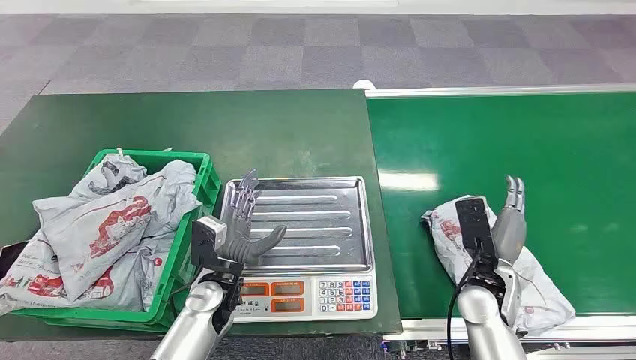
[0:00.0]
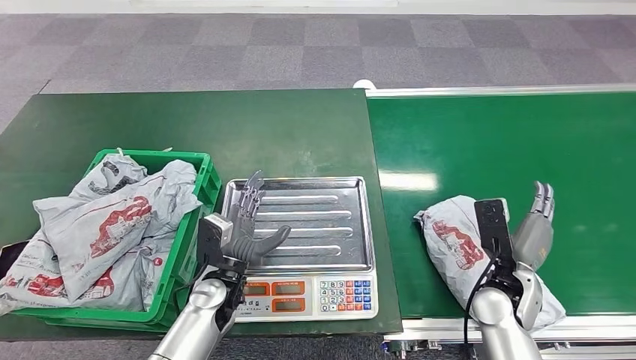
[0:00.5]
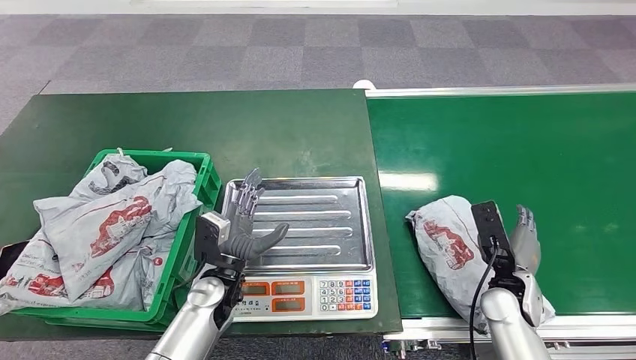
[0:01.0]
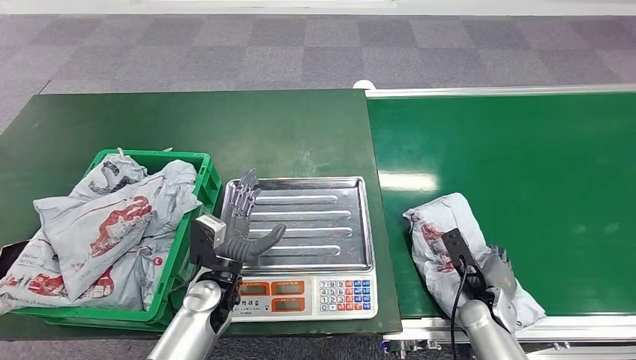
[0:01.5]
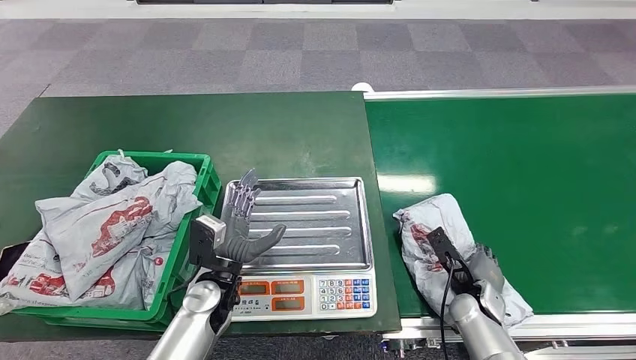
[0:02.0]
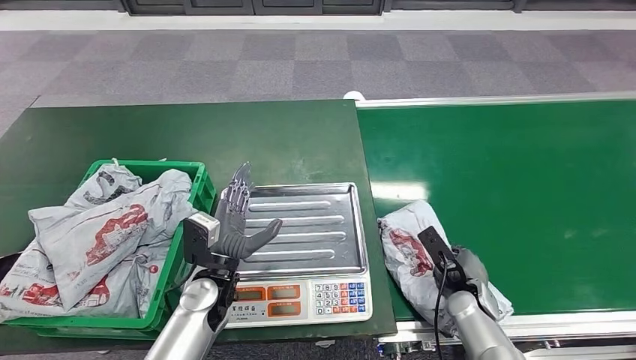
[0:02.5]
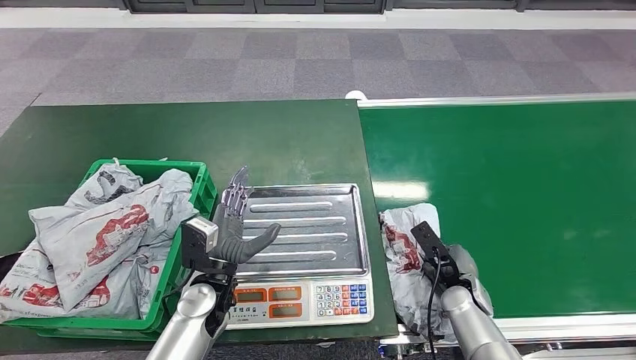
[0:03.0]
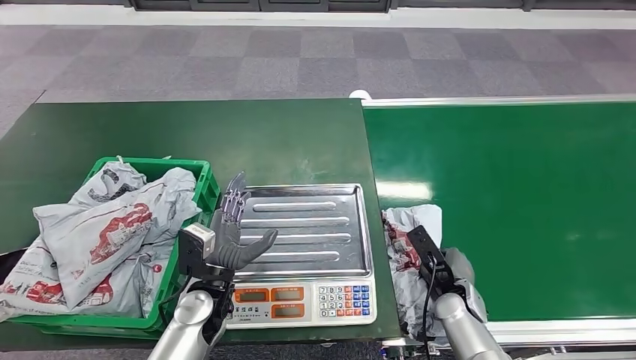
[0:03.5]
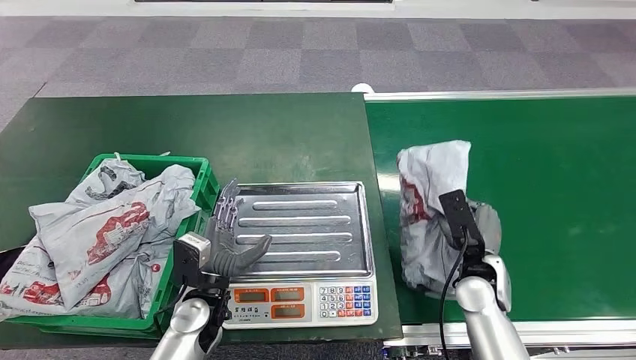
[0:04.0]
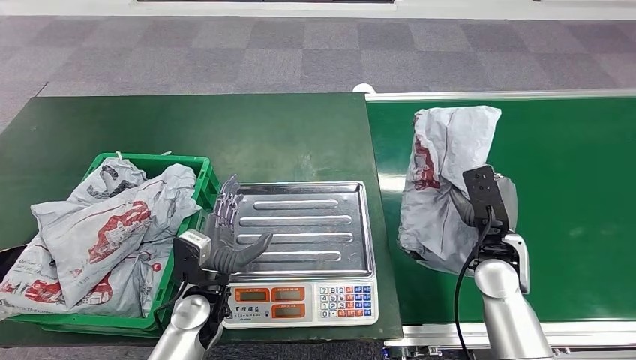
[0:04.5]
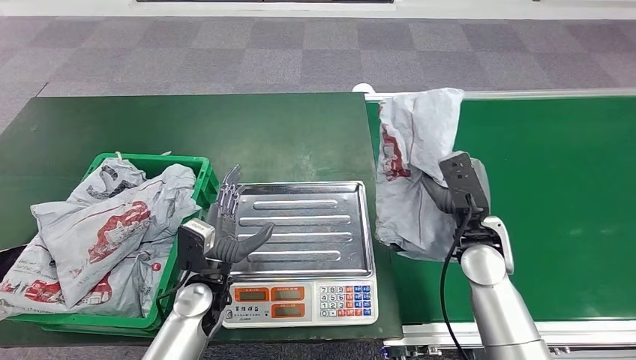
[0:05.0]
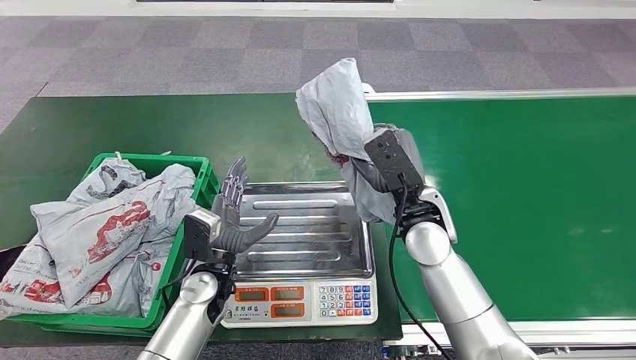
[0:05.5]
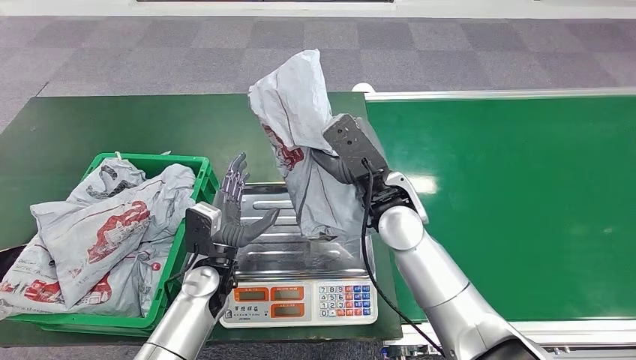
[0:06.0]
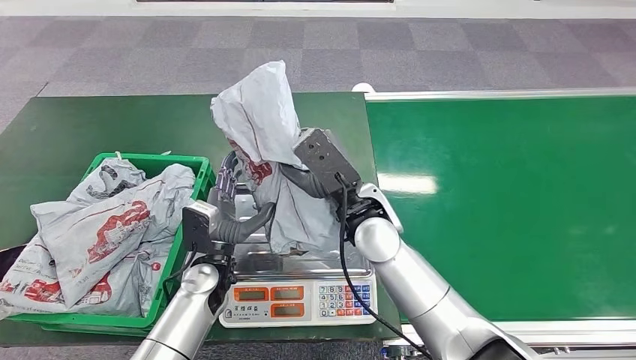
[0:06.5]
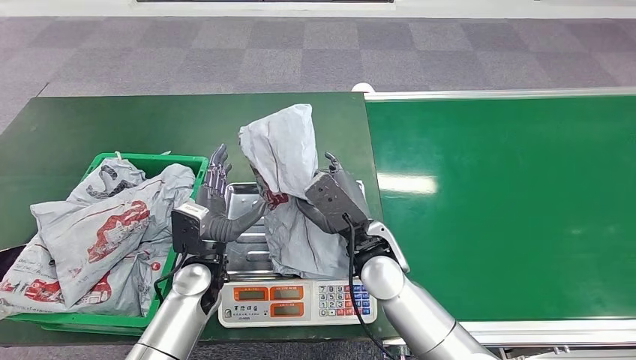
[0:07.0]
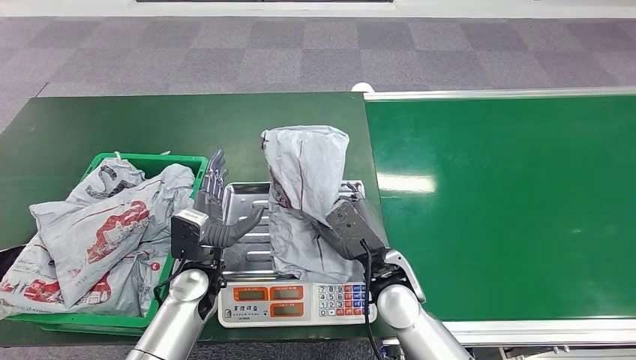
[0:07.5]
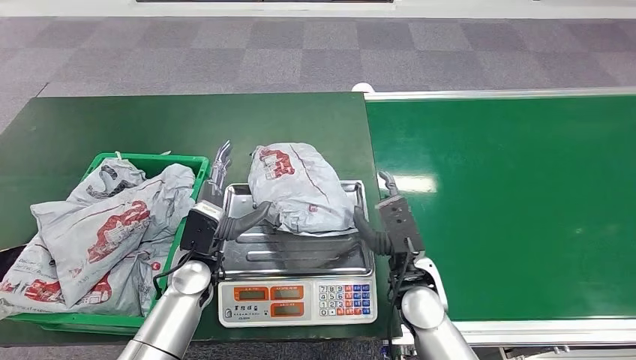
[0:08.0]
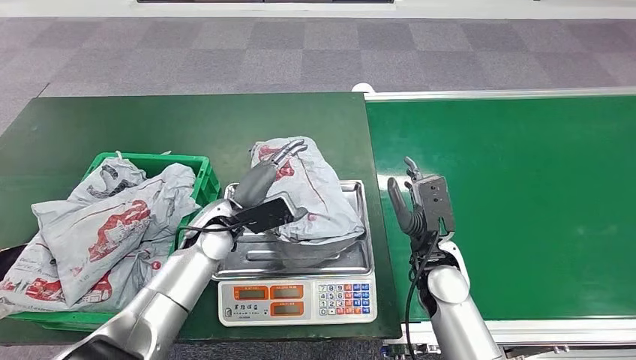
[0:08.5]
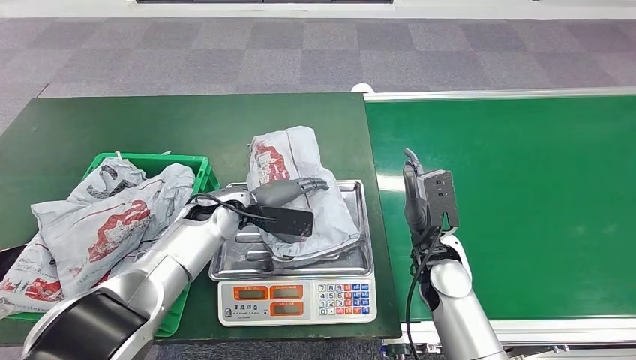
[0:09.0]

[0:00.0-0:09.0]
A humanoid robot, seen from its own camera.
Step, 0:00.0 to 0:04.0: Pick up the package from the conveyor belt.
Step, 0:04.5 to 0:07.5: Place the package onto the inbound machine.

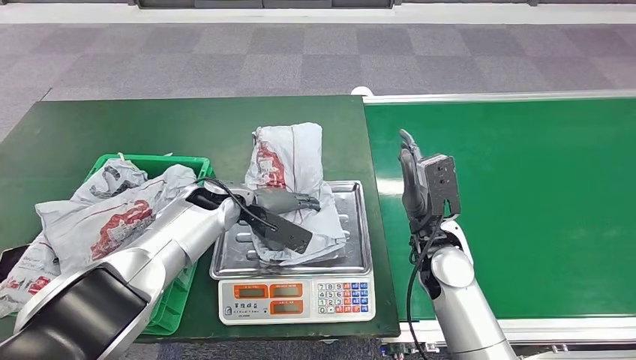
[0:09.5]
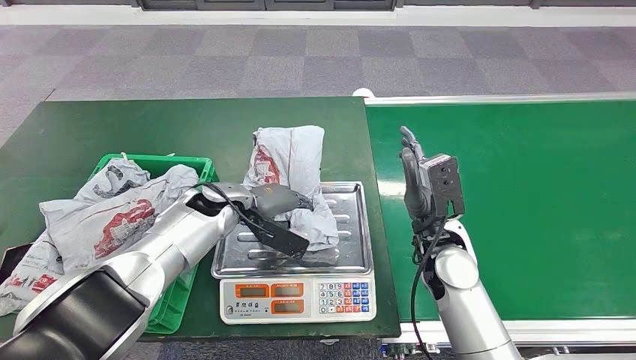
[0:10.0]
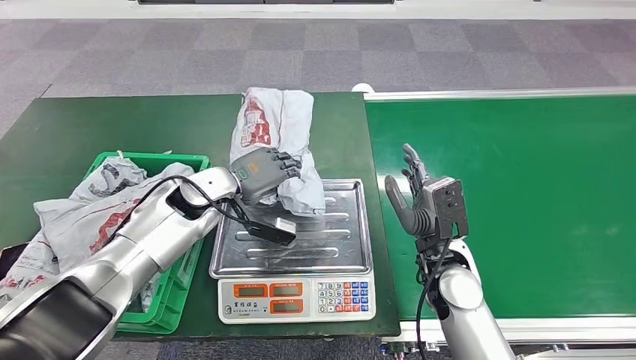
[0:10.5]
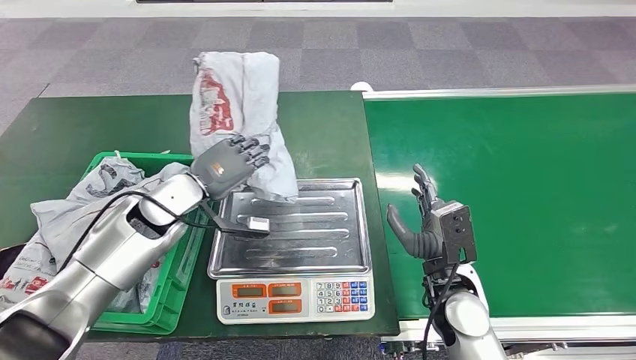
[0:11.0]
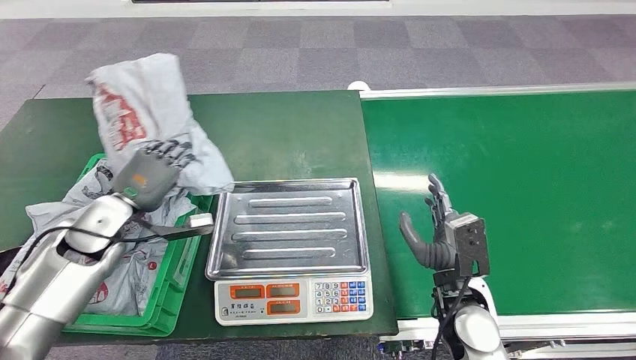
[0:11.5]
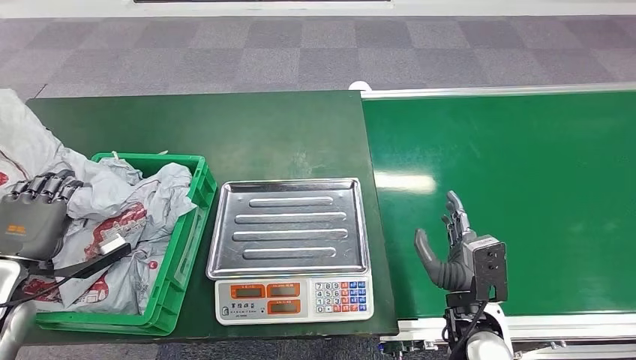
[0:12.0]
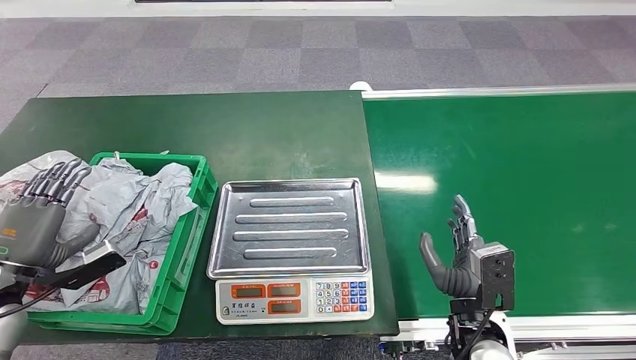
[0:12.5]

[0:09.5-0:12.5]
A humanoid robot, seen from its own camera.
Step, 0:11.0 to 0:12.5: Place the package into the parcel locker.

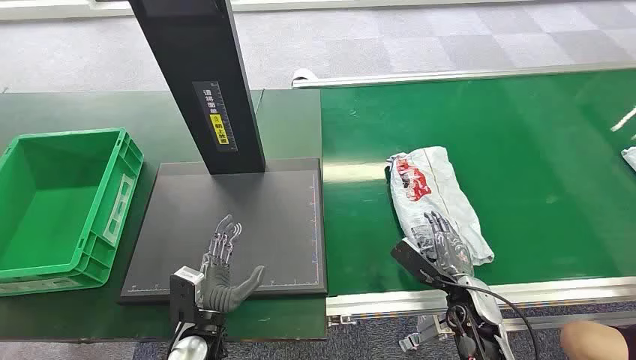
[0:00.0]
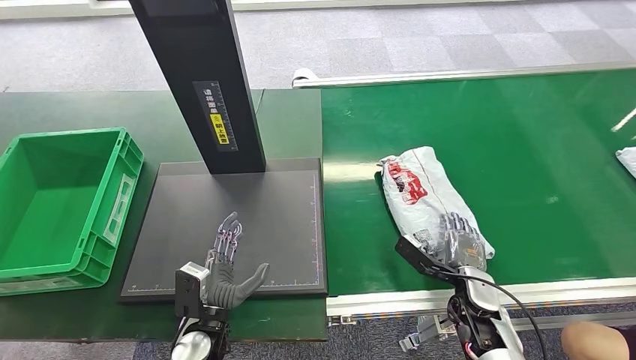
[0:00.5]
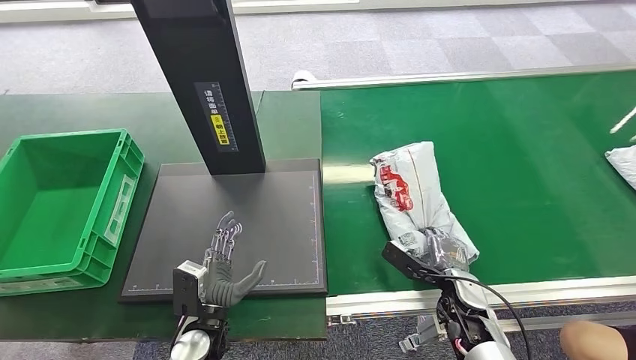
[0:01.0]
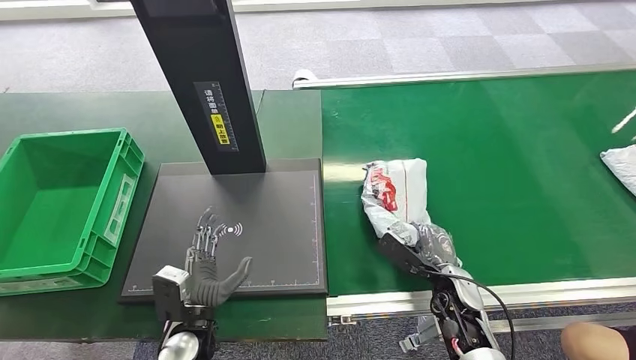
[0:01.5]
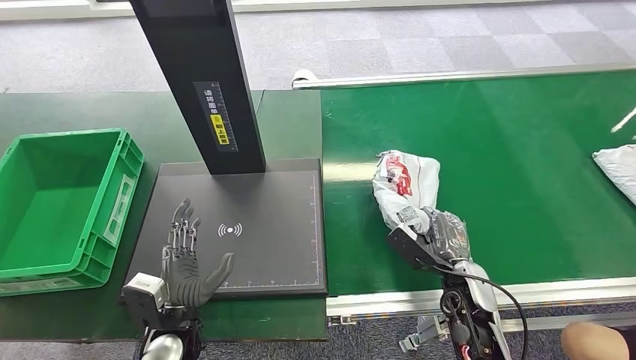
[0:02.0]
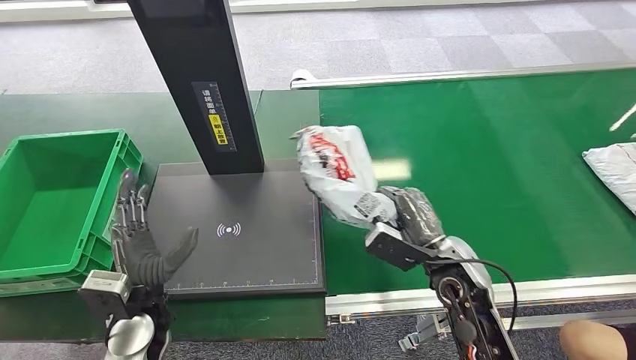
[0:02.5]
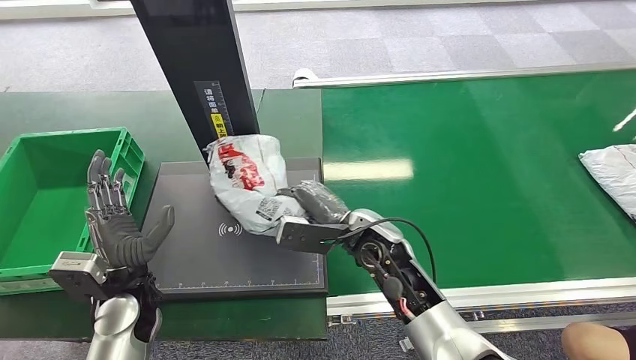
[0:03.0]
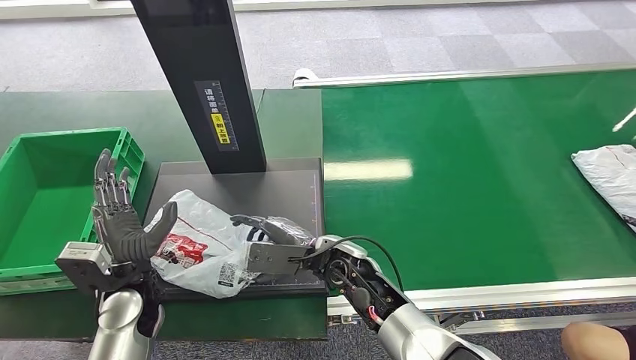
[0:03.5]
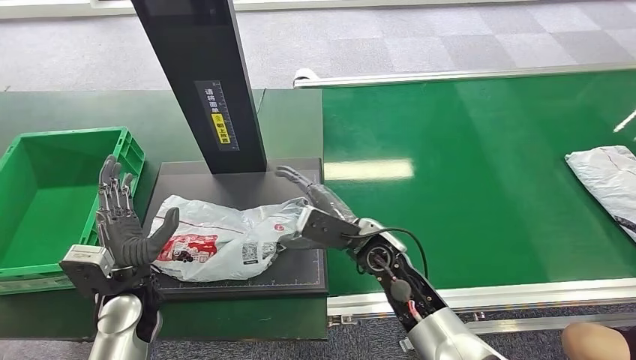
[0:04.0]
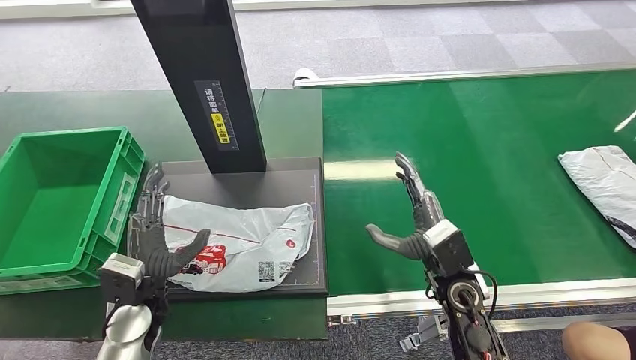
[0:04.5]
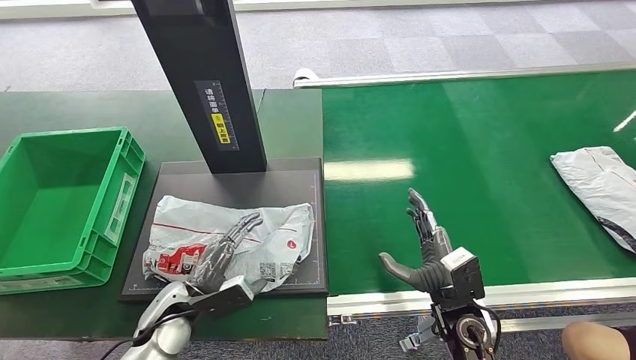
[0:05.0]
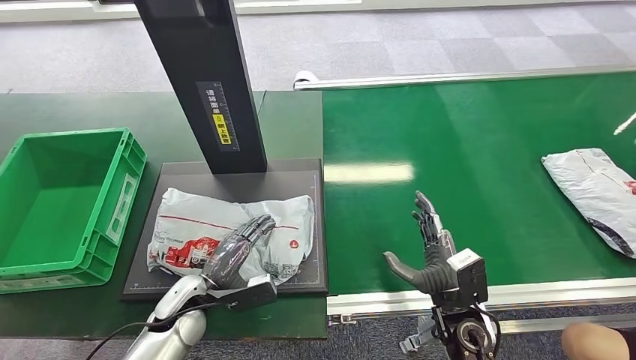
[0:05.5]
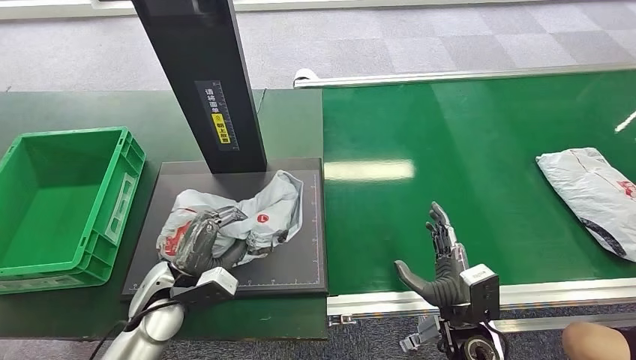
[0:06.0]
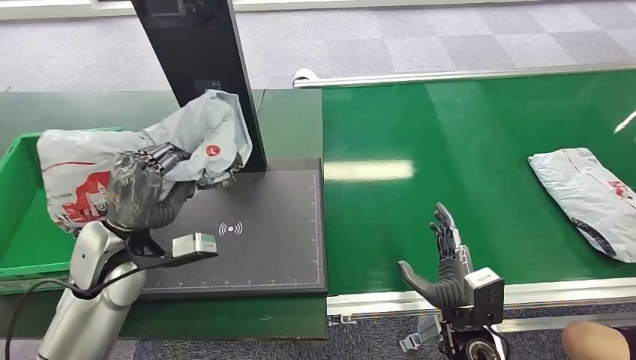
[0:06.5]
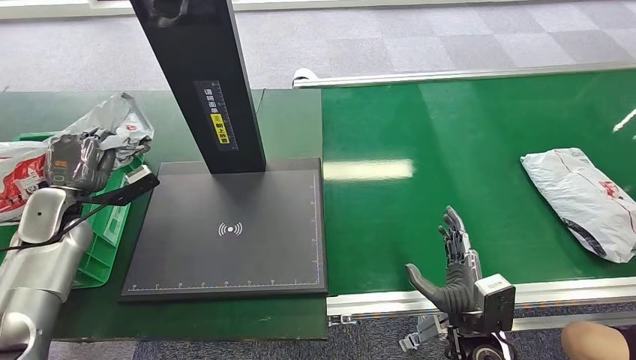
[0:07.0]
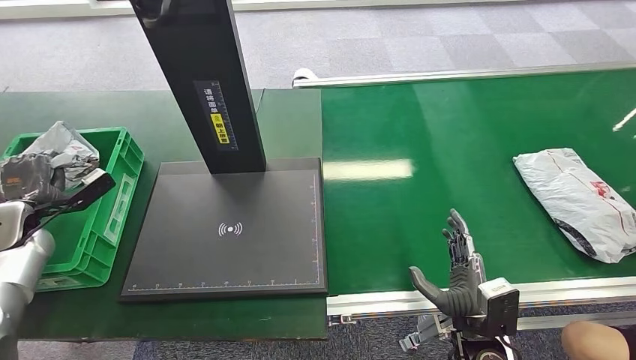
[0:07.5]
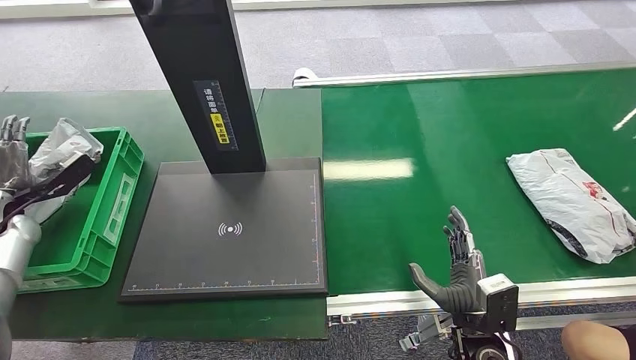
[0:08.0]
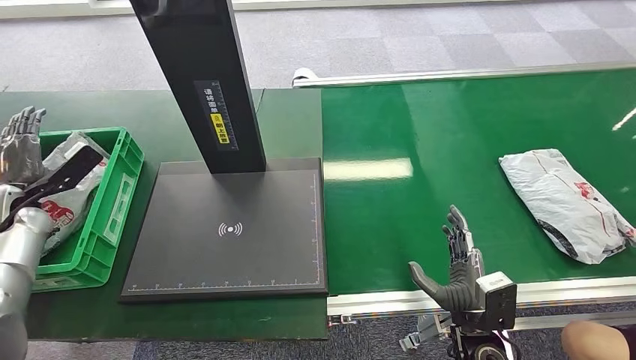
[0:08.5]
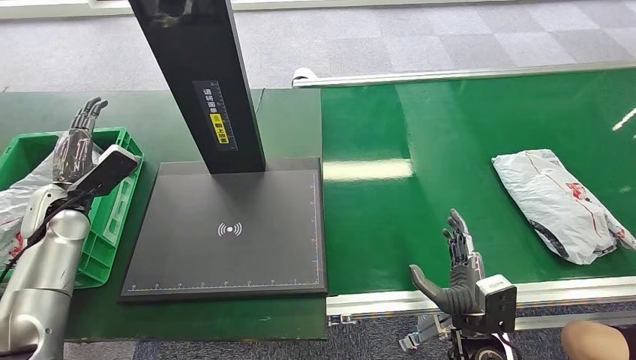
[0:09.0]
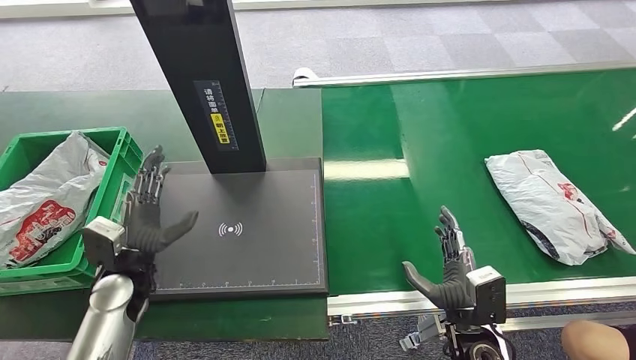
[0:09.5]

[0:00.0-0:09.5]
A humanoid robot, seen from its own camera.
Step, 0:00.0 to 0:02.0: Pick up the package from the conveyor belt.
Step, 0:03.0 to 0:04.0: Place the package onto the inbound machine.
Step, 0:04.5 to 0:06.5: Pick up the package from the inbound machine.
Step, 0:07.0 to 0:09.5: Place the package into the parcel locker.
0:07.5 to 0:09.5: The left hand goes roughly 20 cm to the right.
